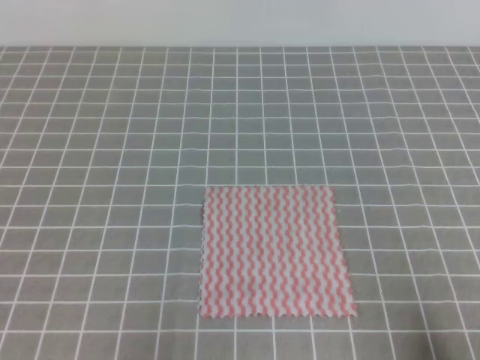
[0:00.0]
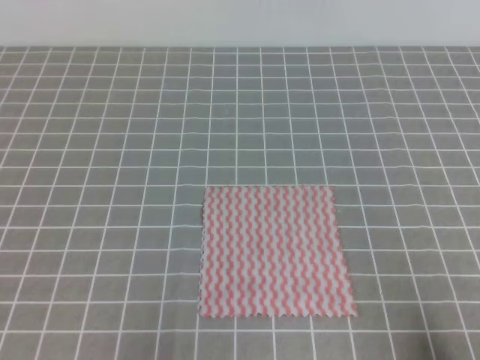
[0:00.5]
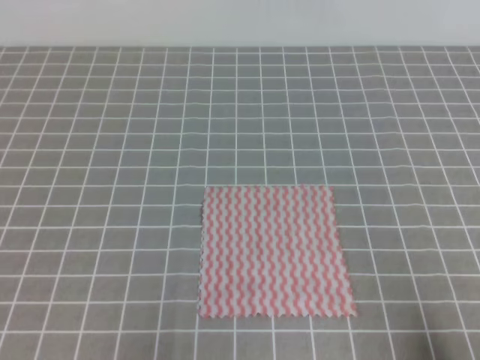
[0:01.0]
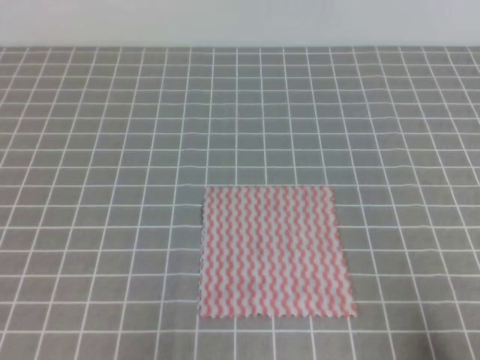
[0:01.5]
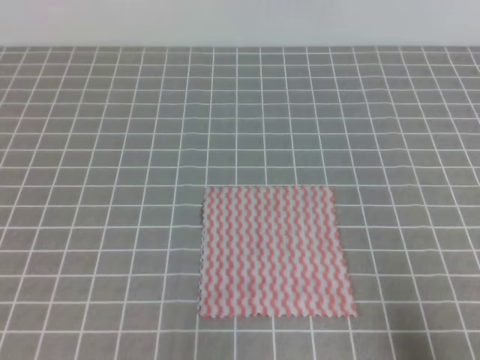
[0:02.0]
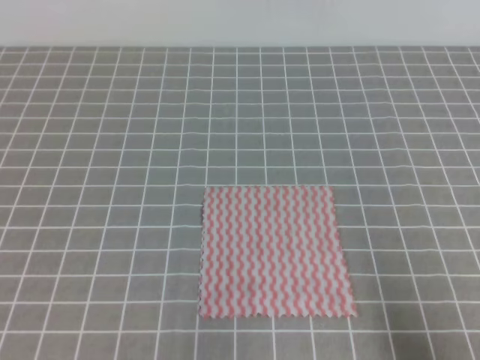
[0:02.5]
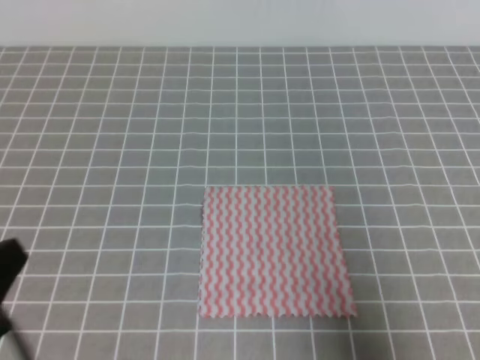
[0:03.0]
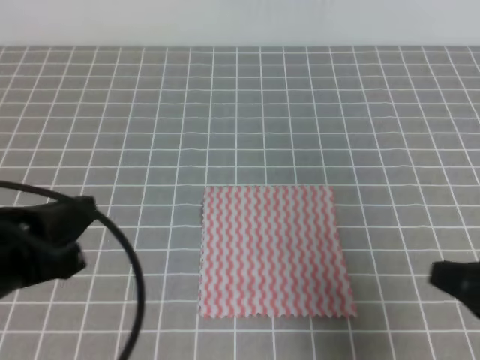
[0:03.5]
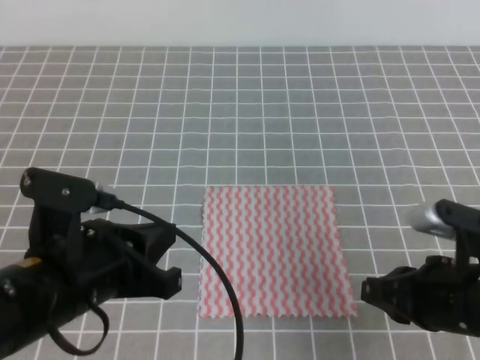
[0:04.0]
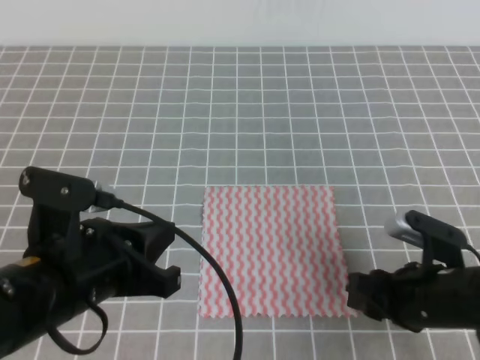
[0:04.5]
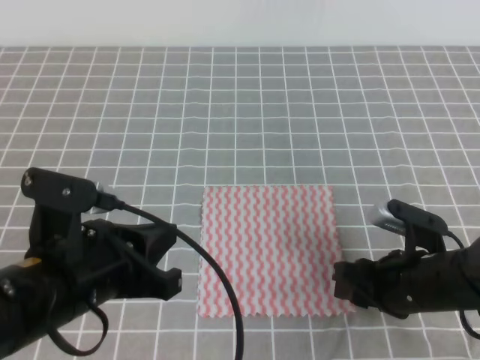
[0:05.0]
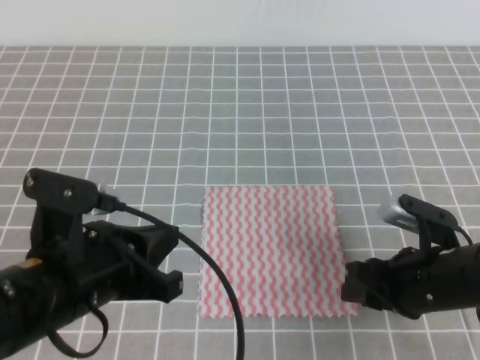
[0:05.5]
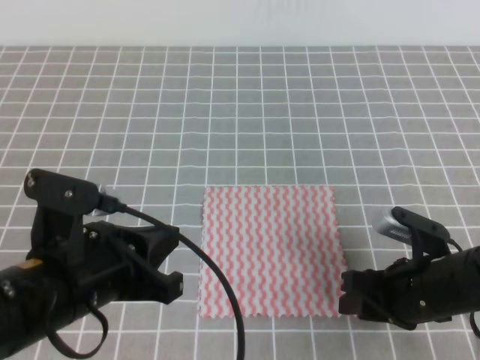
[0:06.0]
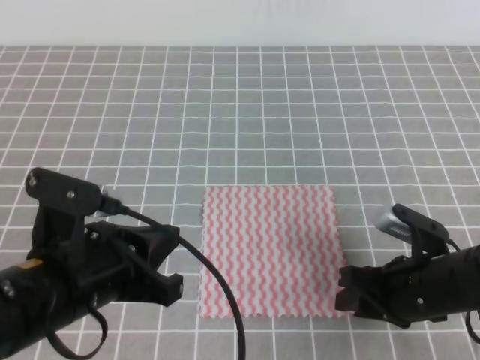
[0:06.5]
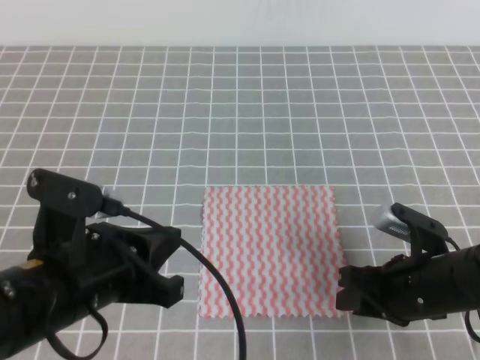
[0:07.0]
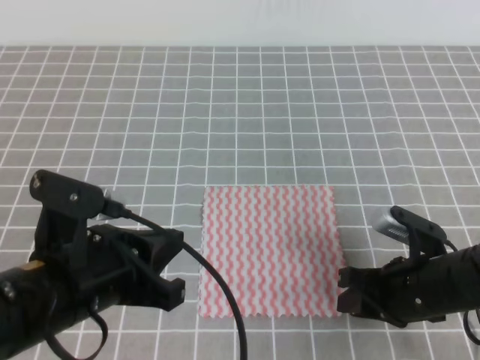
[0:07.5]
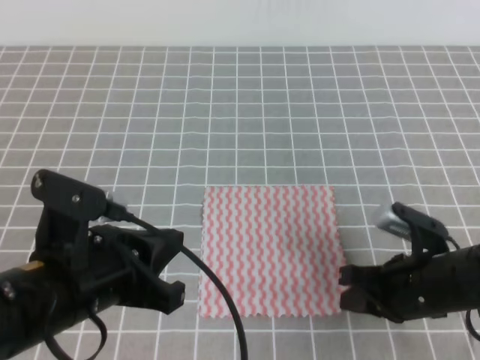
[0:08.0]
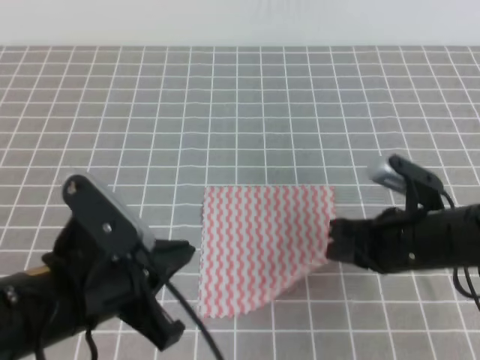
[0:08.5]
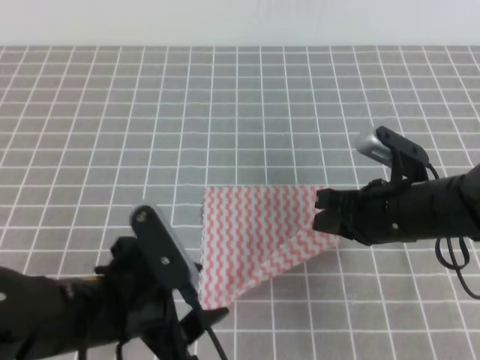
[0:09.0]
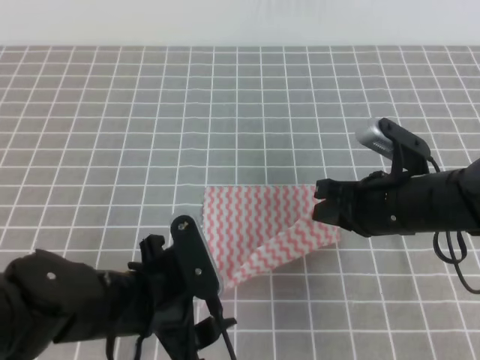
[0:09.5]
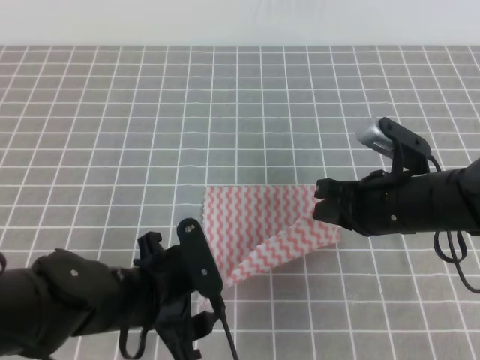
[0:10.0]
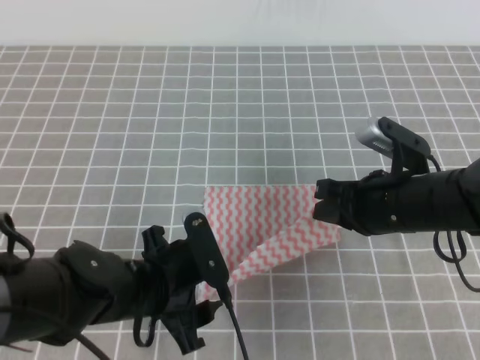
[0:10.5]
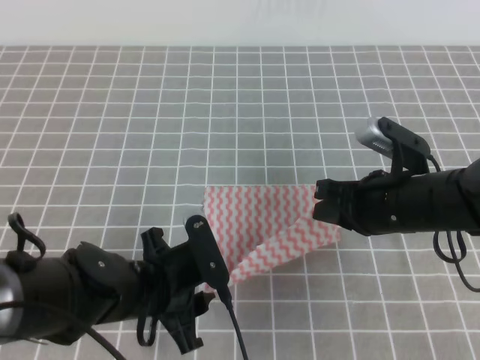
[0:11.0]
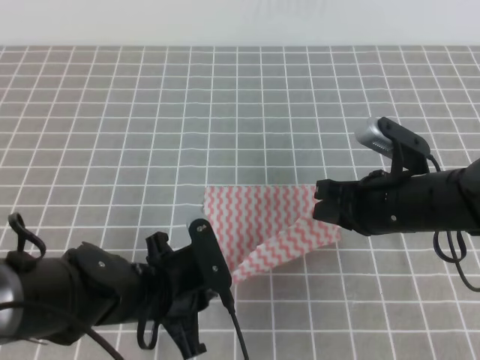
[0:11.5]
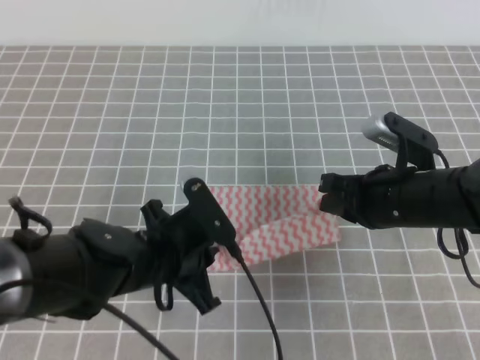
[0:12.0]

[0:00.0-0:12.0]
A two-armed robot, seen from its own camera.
0:02.0 to 0:04.0: The left gripper heads to the right, forward and upward, covering approximately 15 cm. The right gripper is displaced forward and to the left by some 15 cm.
0:04.0 to 0:06.0: The right gripper travels downward by approximately 5 cm, and opens.
0:06.0 to 0:08.0: The right gripper closes its fingers.
0:08.0 to 0:10.0: The right gripper is displaced forward and upward by about 10 cm. Meanwhile the left gripper goes some 10 cm downward, and opens.
0:10.0 to 0:12.0: The left gripper closes.

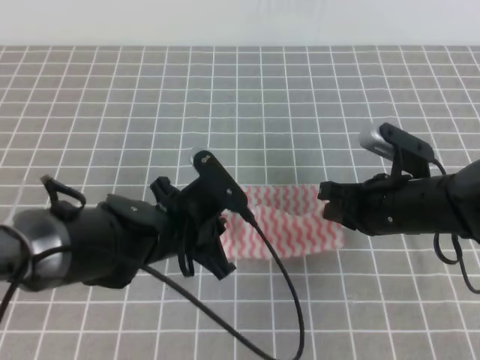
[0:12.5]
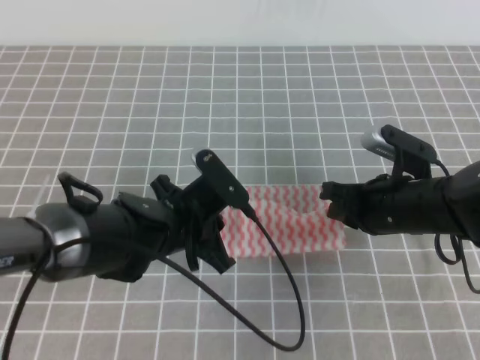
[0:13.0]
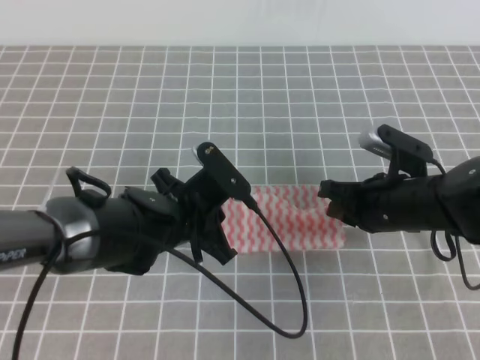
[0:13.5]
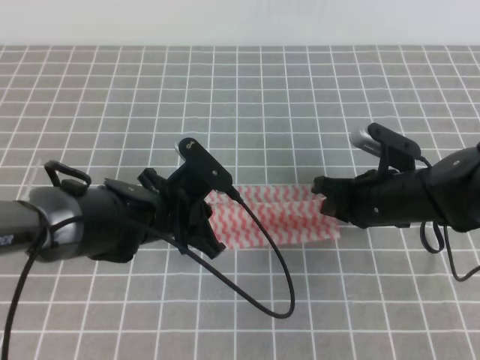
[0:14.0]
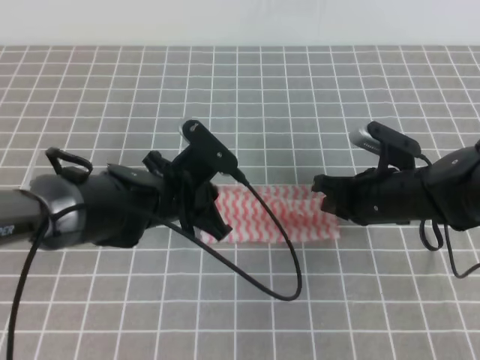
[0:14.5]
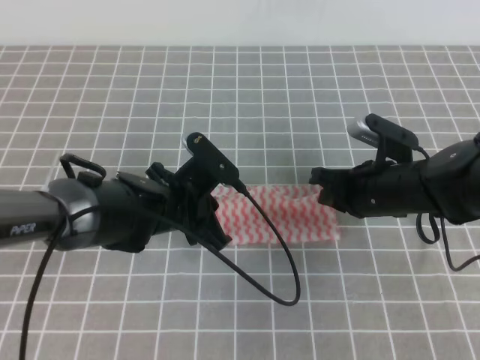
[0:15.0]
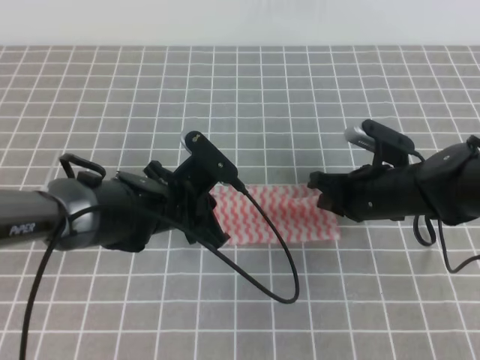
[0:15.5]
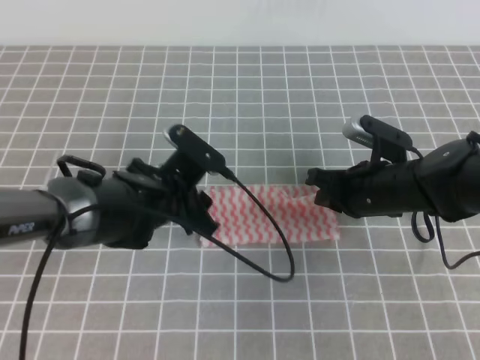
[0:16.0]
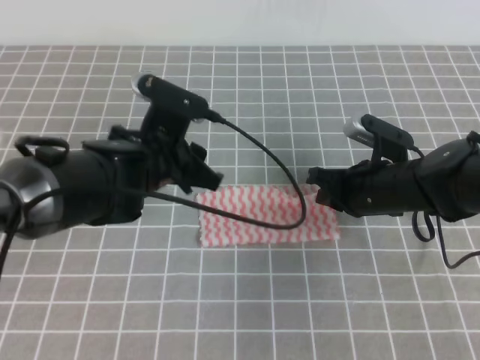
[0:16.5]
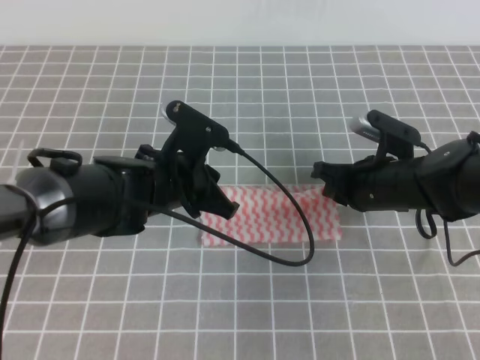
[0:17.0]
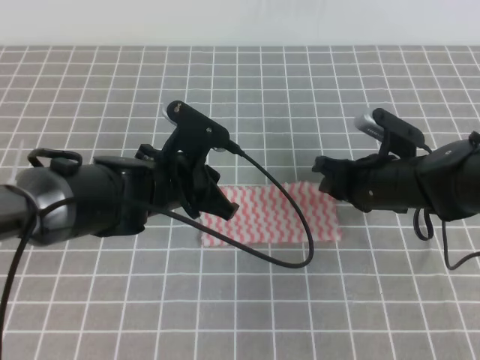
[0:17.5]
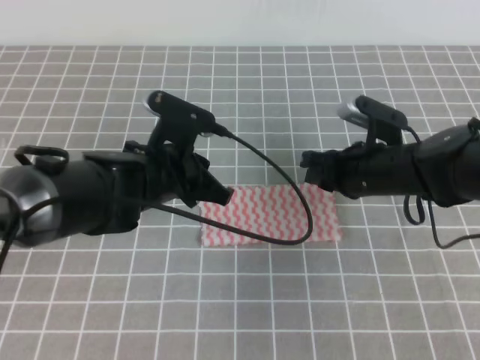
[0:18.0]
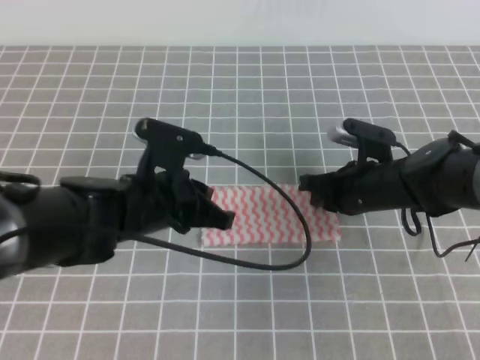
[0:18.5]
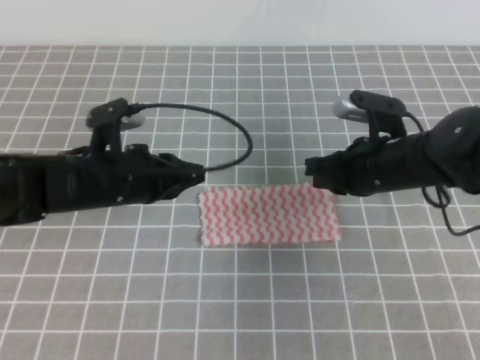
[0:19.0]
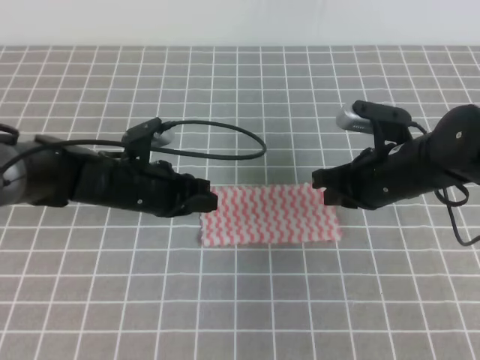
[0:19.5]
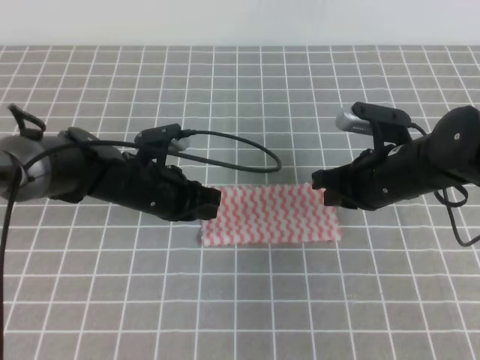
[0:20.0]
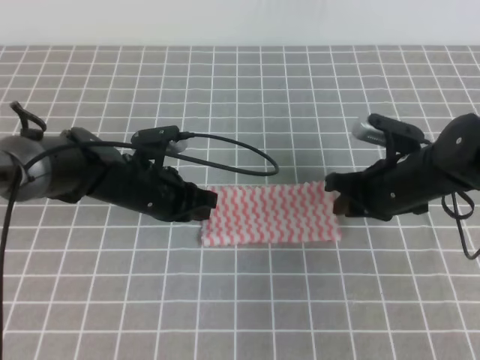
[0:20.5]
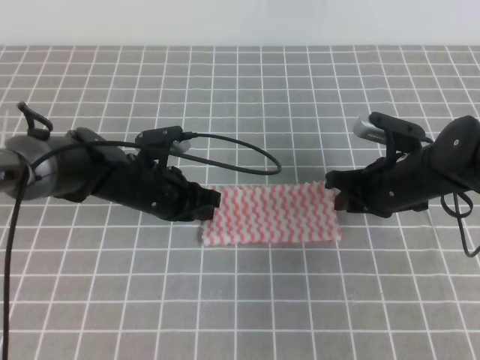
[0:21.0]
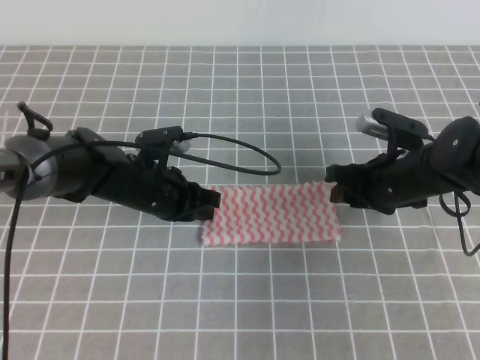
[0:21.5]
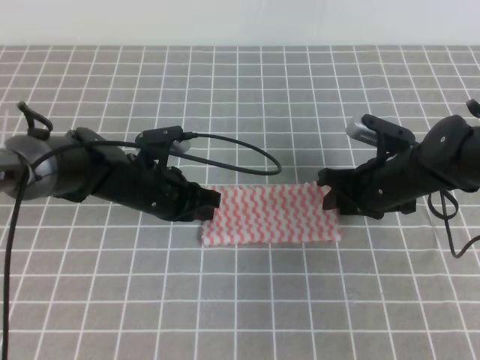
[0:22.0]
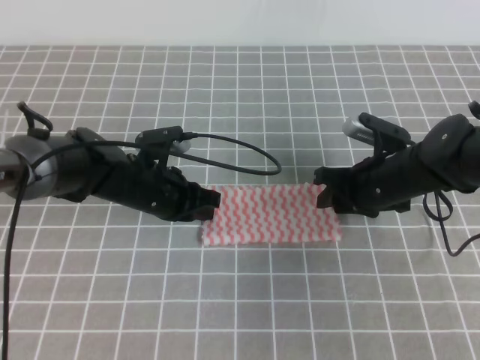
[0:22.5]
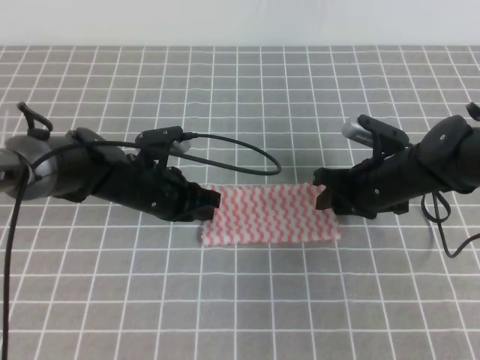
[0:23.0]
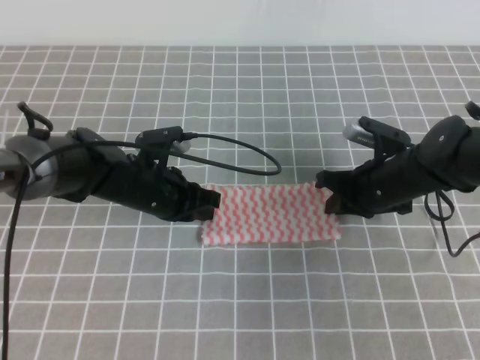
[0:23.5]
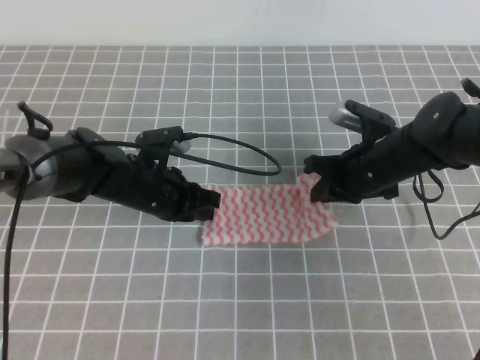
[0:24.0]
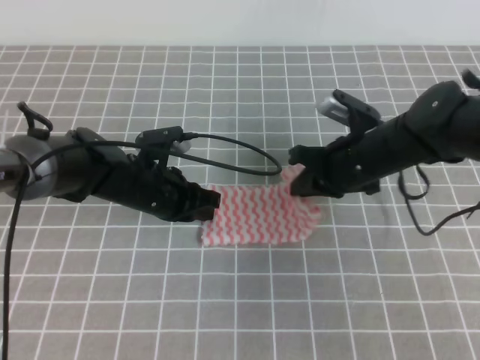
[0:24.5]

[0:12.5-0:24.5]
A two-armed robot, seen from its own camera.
0:14.5 to 0:16.5: The left gripper opens.
0:16.5 to 0:18.5: The left gripper closes its fingers; the right gripper opens, then closes again.
0:18.5 to 0:20.5: The left gripper heads forward and downward, covering some 10 cm, while the right gripper opens its fingers.
0:20.5 to 0:22.5: The right gripper opens.
0:22.5 to 0:24.5: The right gripper closes.

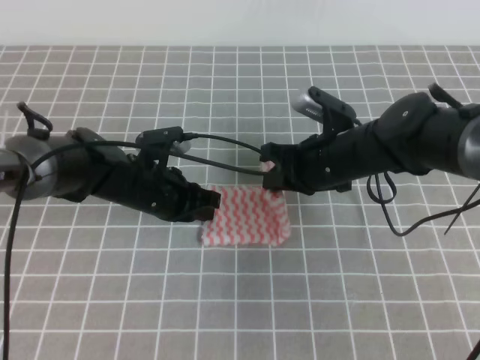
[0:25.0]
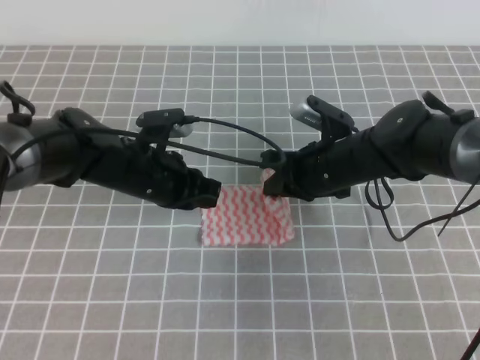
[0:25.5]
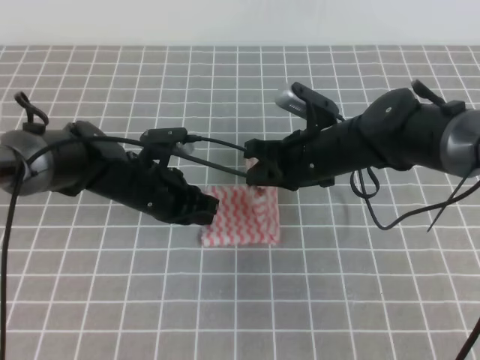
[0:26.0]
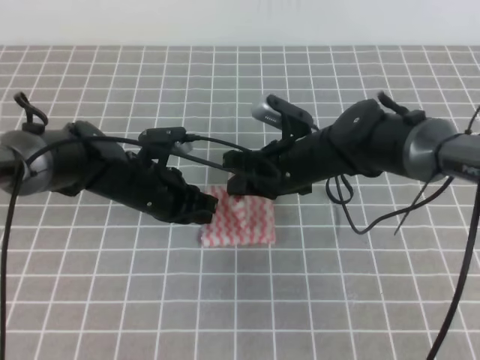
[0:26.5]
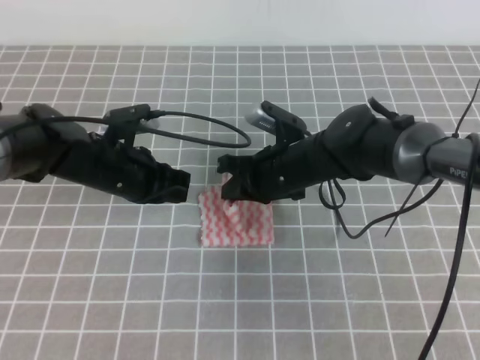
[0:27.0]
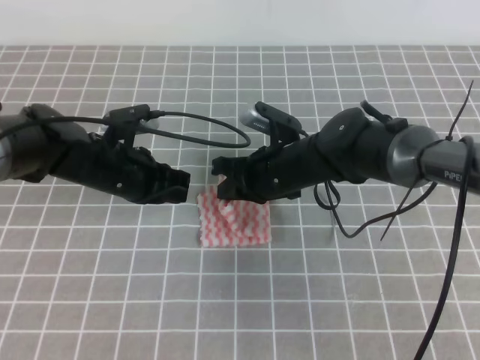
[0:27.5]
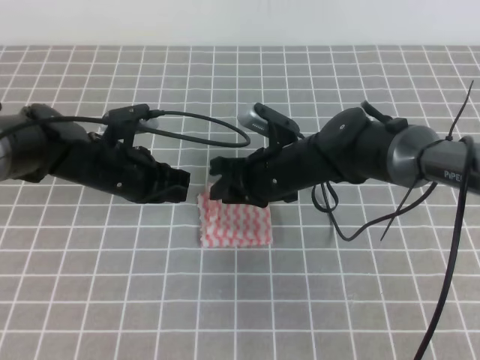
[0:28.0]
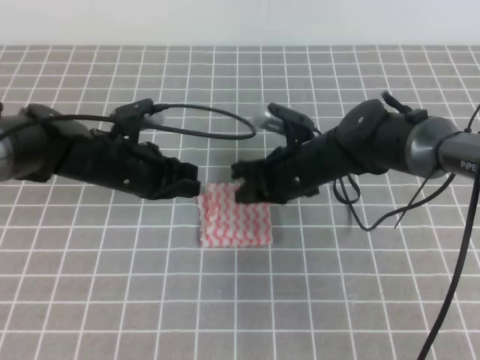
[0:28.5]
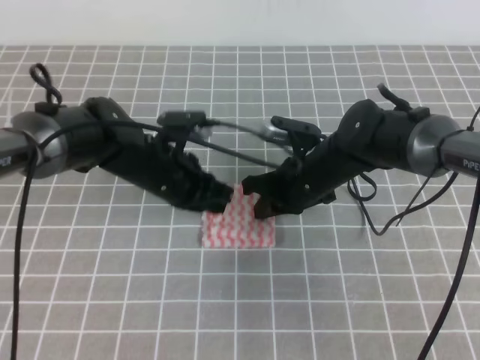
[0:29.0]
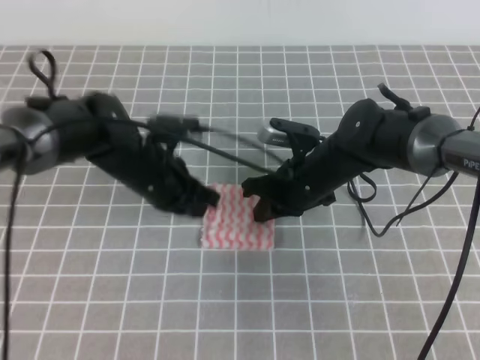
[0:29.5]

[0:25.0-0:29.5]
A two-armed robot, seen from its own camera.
0:25.0 to 0:27.0: The right gripper goes some 5 cm to the left.
0:27.0 to 0:29.5: The right gripper opens and closes again.
